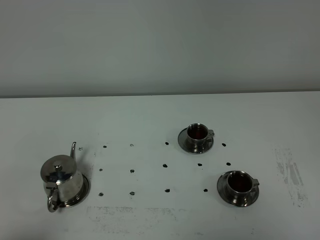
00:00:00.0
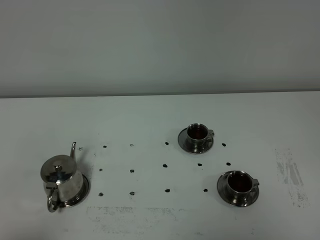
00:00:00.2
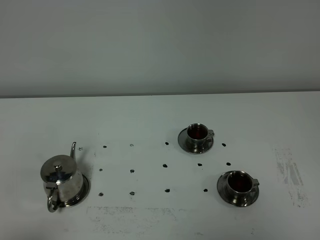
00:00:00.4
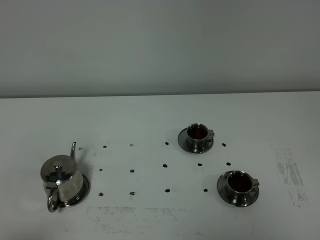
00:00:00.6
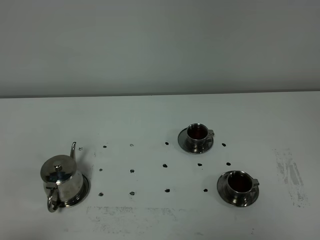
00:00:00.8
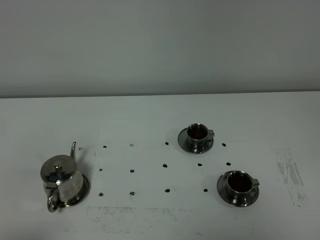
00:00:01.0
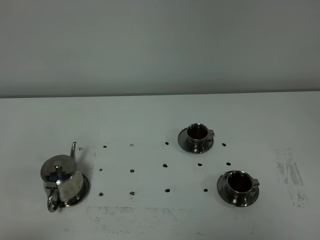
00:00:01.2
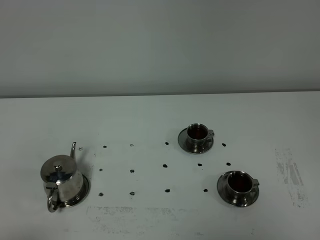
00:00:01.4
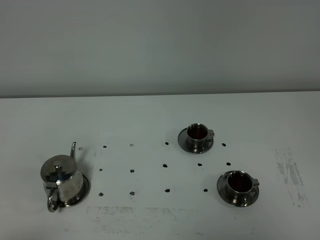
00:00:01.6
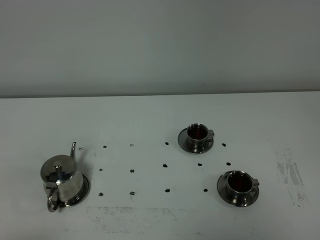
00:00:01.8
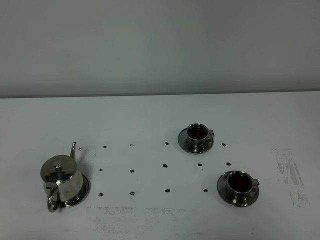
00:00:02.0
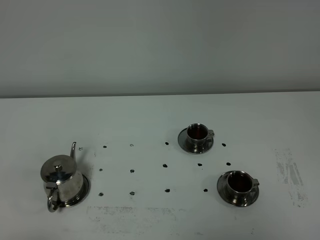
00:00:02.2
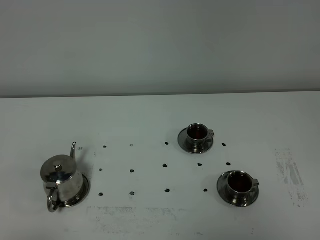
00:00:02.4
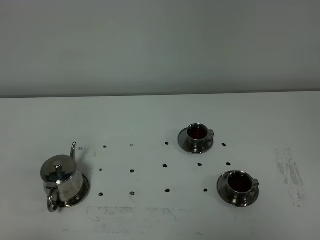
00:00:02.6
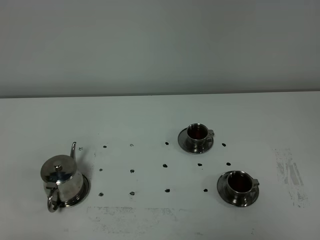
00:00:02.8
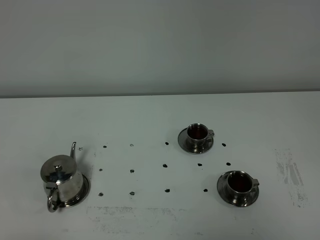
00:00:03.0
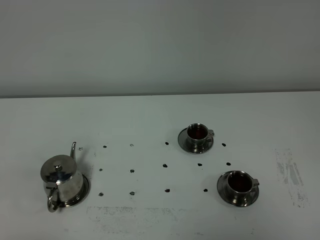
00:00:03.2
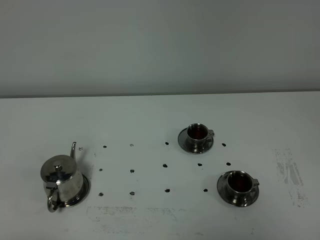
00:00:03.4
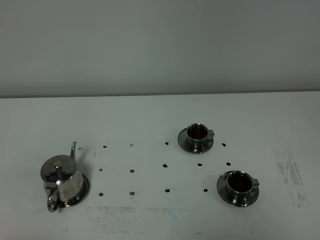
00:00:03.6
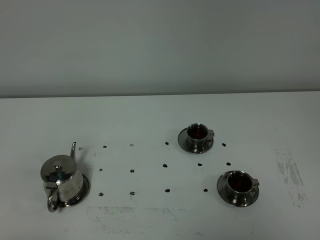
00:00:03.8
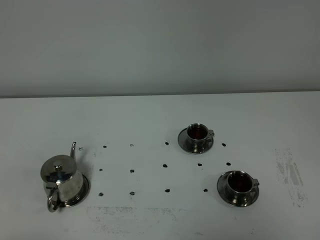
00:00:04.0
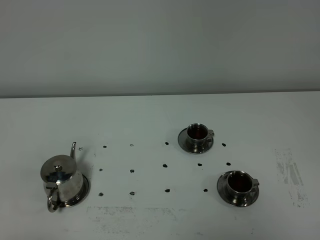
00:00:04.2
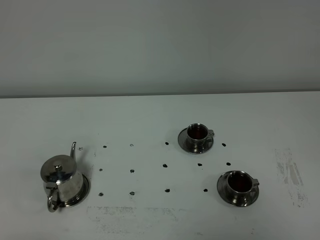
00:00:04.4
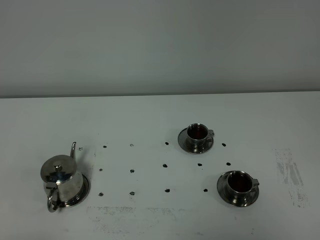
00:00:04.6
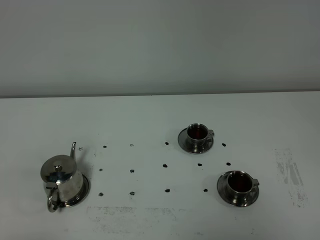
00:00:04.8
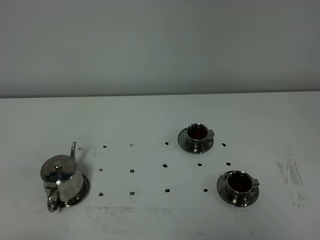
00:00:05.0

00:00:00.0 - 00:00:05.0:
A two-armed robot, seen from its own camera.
Task of the whole recording: grasp the stainless steel teapot and pour the tea into the two stainless steel teacups one by one, put the stainless steel teapot back in its original place.
00:00:03.4 - 00:00:05.0: Both grippers stay put.
